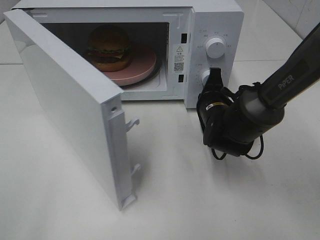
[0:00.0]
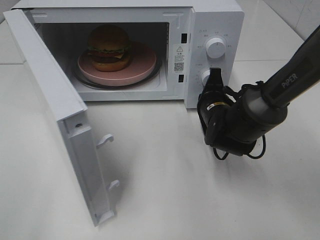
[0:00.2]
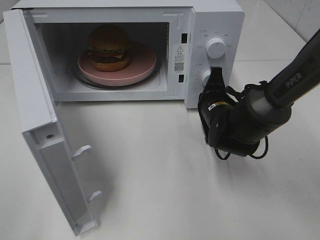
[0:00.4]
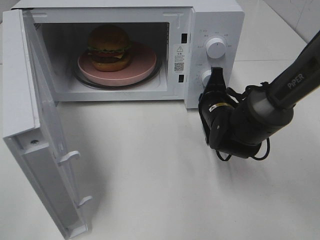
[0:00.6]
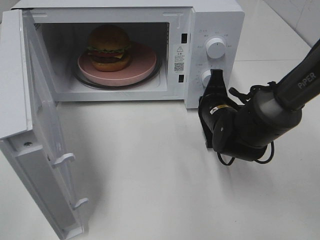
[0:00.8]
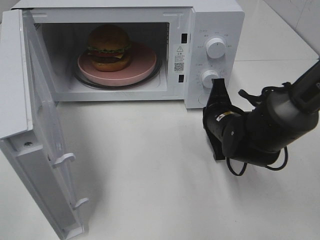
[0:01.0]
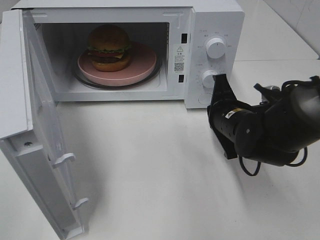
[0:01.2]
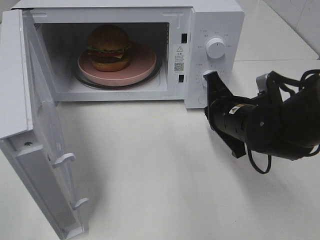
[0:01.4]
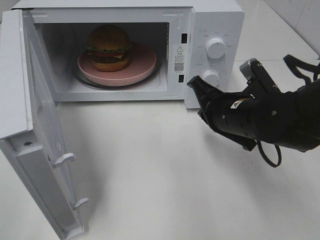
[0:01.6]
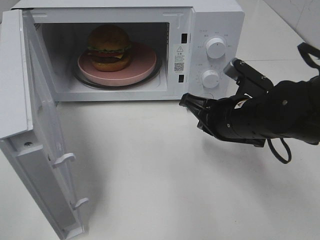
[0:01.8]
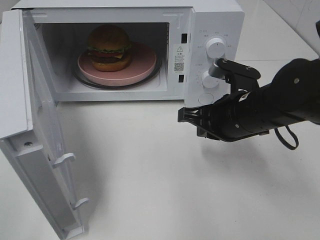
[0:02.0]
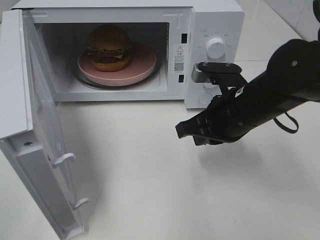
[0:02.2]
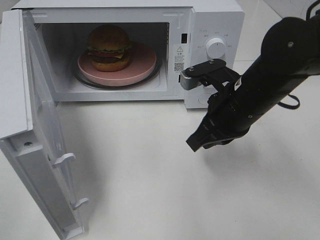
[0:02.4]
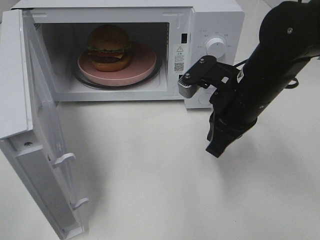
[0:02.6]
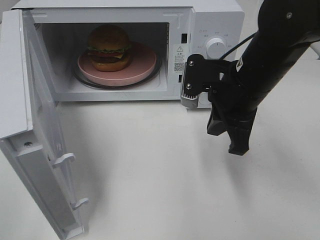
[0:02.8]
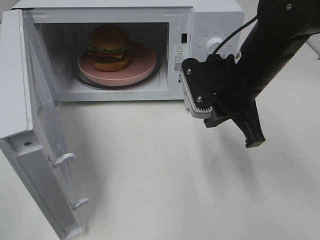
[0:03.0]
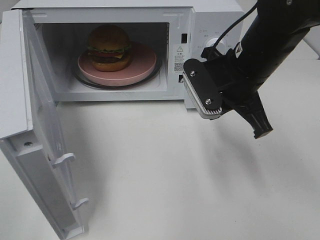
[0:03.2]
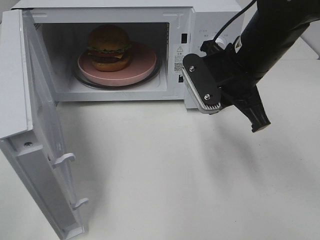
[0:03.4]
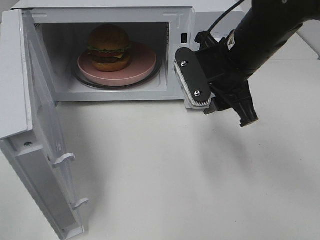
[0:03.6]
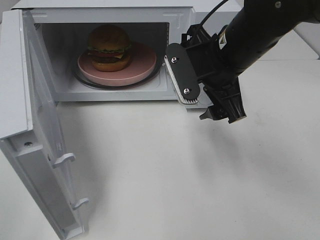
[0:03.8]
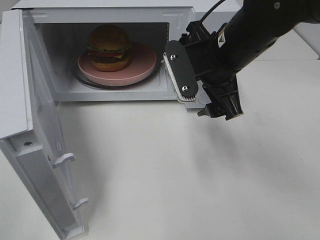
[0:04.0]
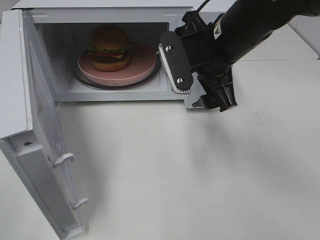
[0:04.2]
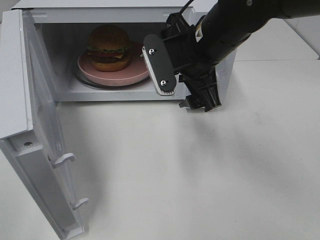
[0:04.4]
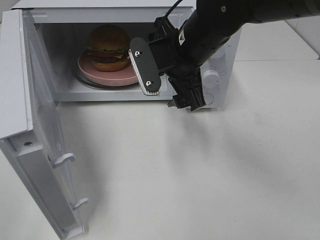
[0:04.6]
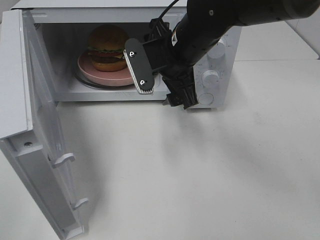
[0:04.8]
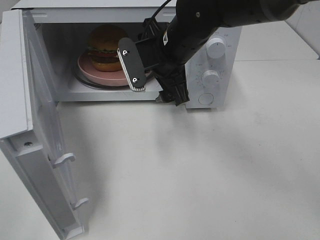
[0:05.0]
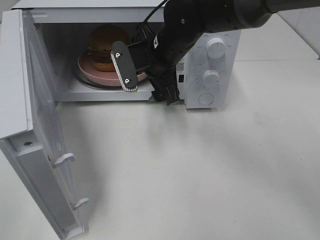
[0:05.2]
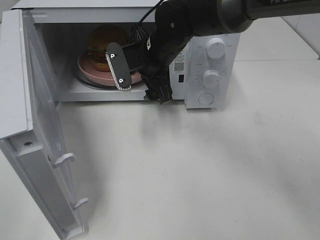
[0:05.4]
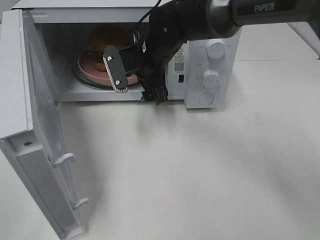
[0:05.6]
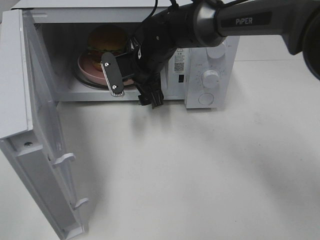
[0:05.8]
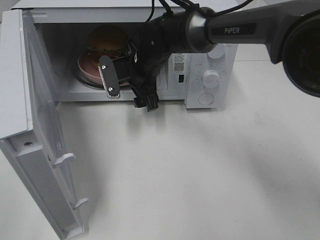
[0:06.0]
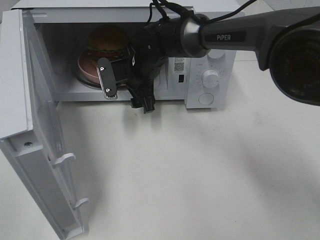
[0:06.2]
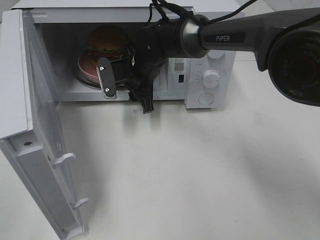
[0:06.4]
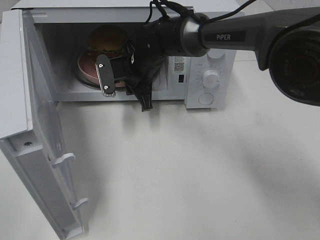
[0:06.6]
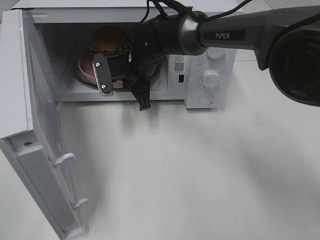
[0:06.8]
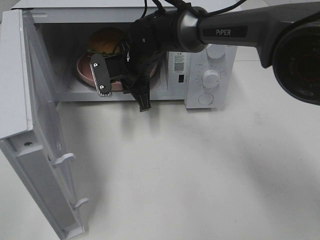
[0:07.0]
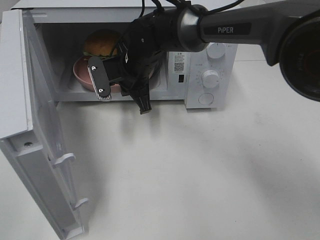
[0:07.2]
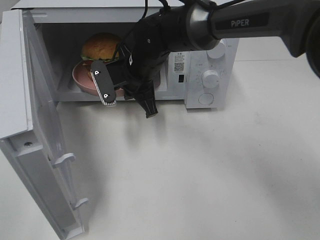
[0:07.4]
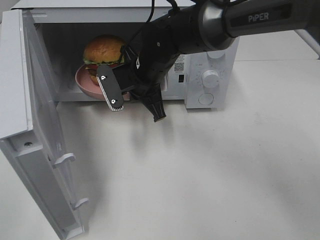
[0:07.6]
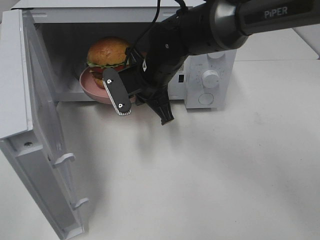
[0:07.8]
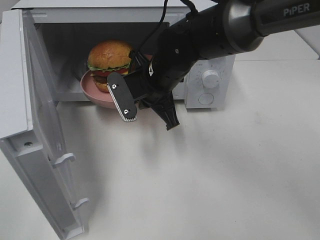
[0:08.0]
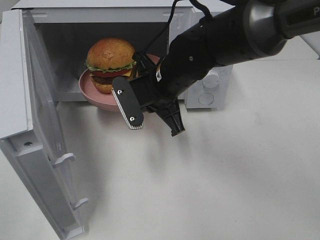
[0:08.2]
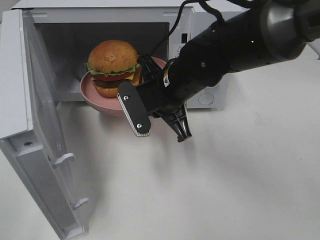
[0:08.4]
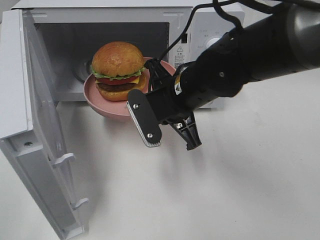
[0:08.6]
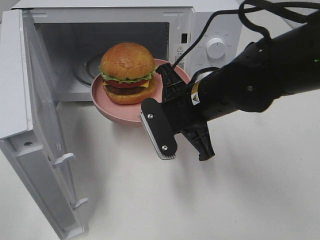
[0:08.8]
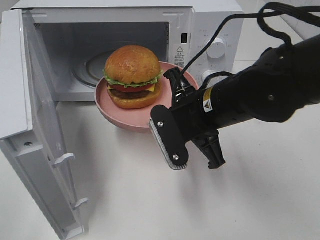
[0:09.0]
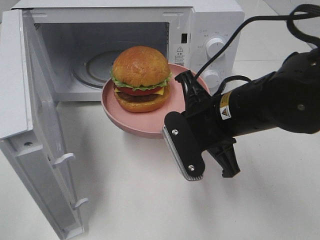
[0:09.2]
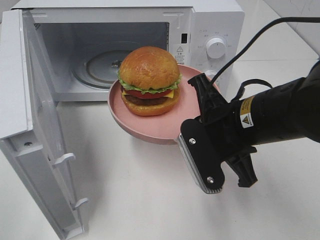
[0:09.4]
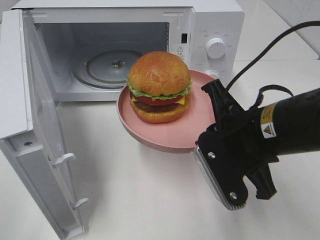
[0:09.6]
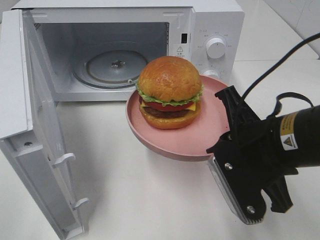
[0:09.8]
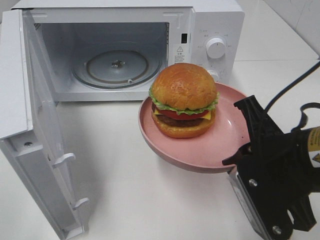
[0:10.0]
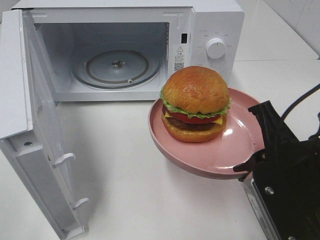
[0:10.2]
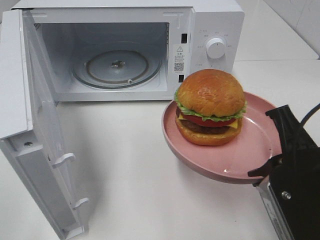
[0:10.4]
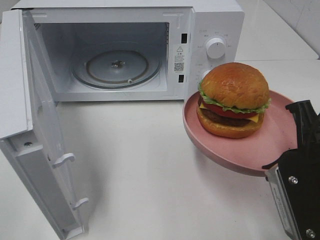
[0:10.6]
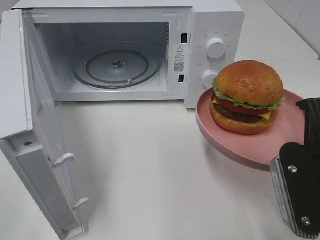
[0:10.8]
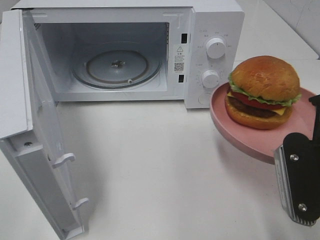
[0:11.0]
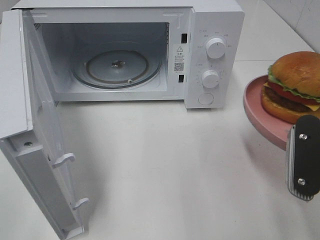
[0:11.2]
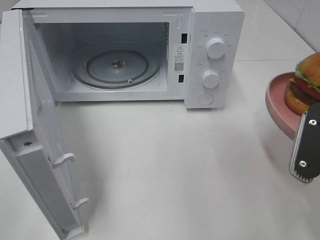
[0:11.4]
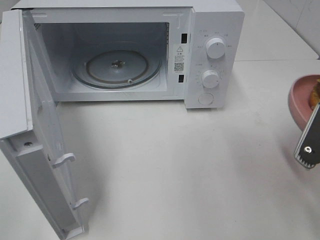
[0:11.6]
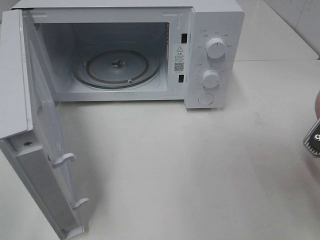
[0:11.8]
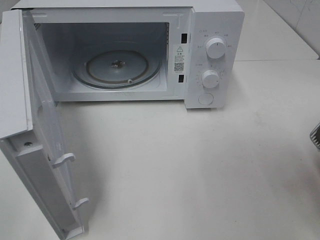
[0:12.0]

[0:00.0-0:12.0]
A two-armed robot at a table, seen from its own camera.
Task of the whole recording: Heat the burger.
Step, 0:01.0 to 0:06.6: Right hand: grab the plate with the hamburger.
0:00.0 to 0:01.6: The right gripper shifts about 10 cm backward and upward.
0:01.6 to 0:03.0: The right gripper moves upward, approximately 5 cm.
0:03.0 to 0:04.4: The right gripper heads to the left, covering about 5 cm, and opens its fingers.
0:04.4 to 0:06.0: The right gripper moves forward, downward and to the left, about 15 cm.
0:06.0 to 0:07.6: The right gripper moves backward, approximately 5 cm, and closes its fingers.
0:07.6 to 0:09.0: The right gripper goes some 15 cm backward and to the right.
0:09.0 to 0:10.4: The right gripper is displaced backward and to the right by some 15 cm.
0:10.4 to 0:12.0: The right gripper moves to the right, roughly 5 cm.

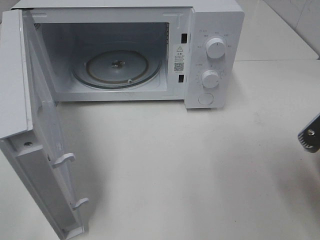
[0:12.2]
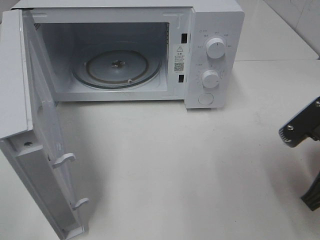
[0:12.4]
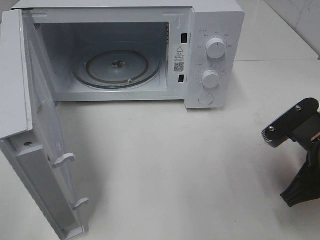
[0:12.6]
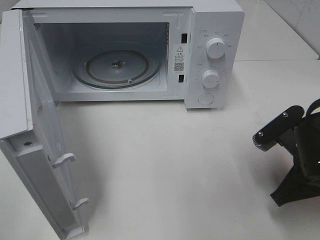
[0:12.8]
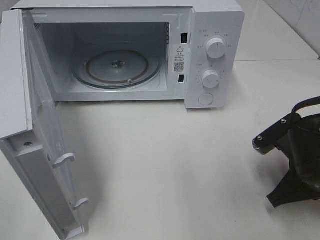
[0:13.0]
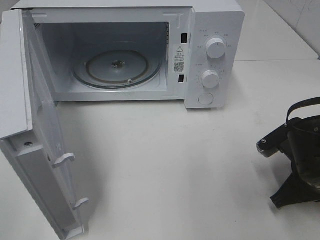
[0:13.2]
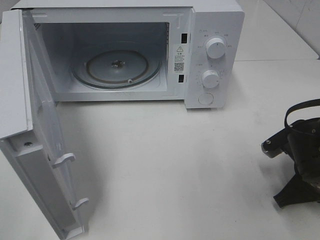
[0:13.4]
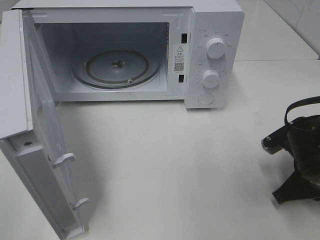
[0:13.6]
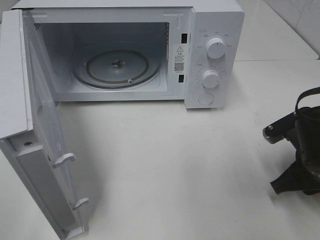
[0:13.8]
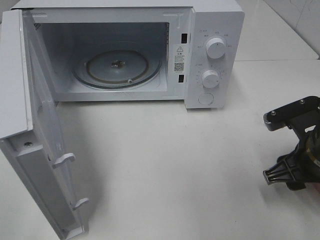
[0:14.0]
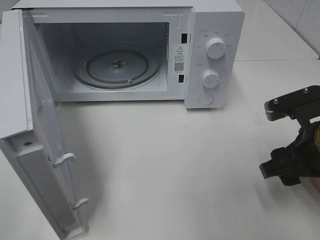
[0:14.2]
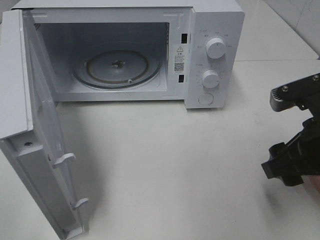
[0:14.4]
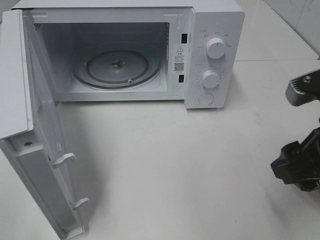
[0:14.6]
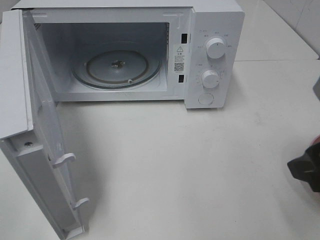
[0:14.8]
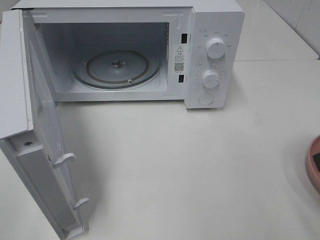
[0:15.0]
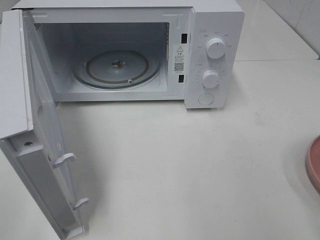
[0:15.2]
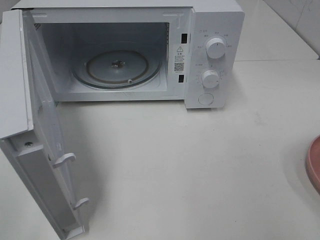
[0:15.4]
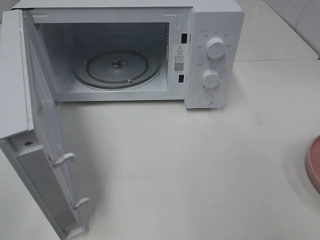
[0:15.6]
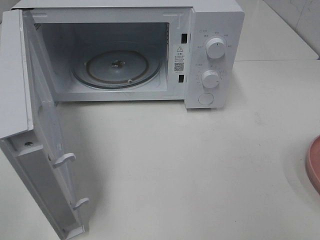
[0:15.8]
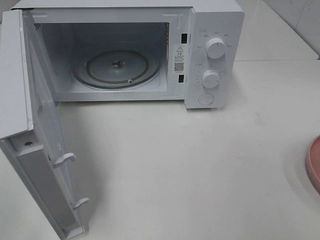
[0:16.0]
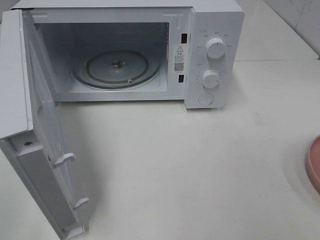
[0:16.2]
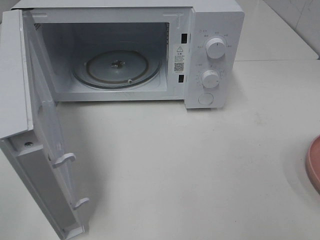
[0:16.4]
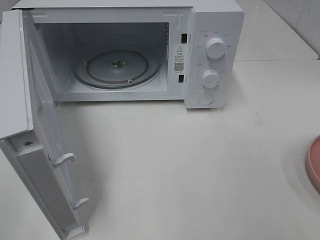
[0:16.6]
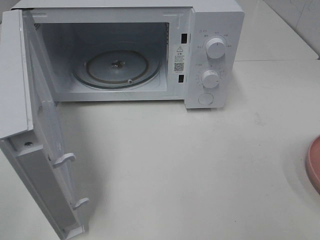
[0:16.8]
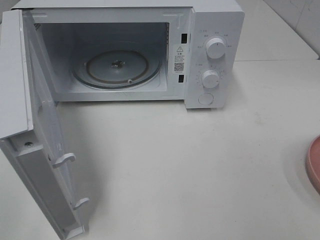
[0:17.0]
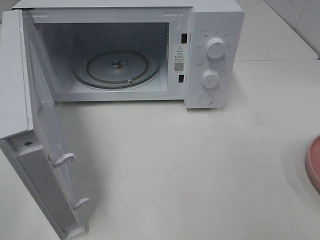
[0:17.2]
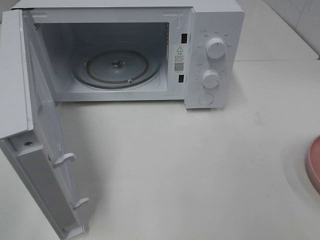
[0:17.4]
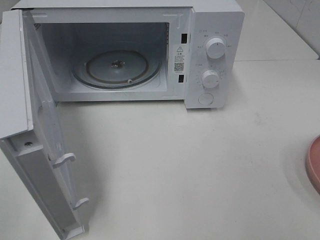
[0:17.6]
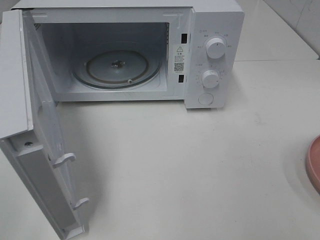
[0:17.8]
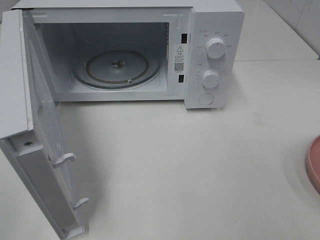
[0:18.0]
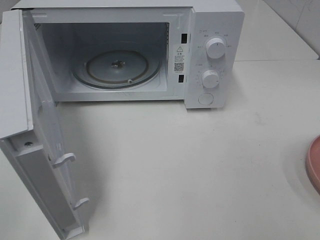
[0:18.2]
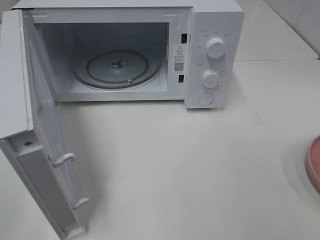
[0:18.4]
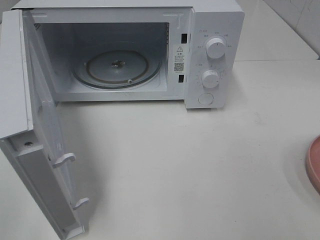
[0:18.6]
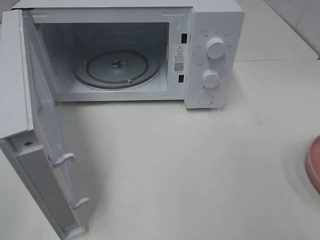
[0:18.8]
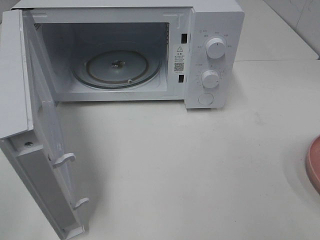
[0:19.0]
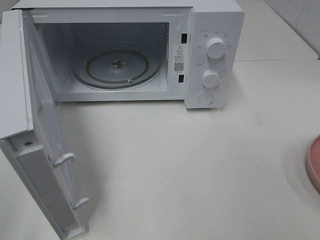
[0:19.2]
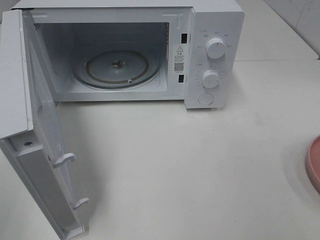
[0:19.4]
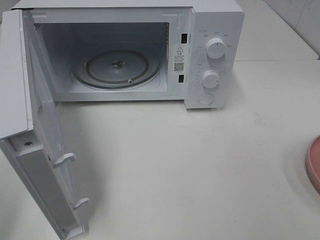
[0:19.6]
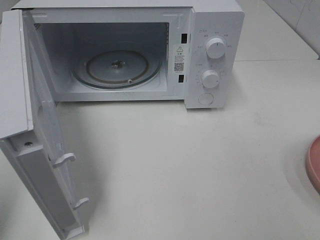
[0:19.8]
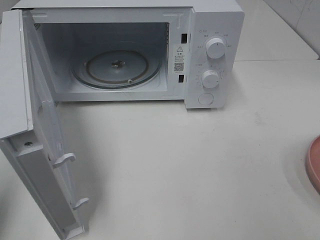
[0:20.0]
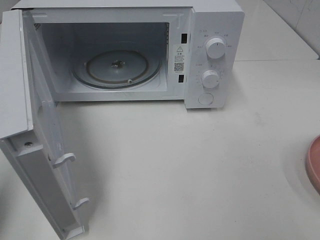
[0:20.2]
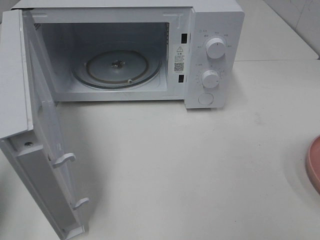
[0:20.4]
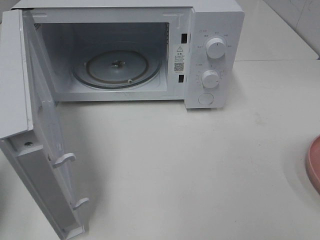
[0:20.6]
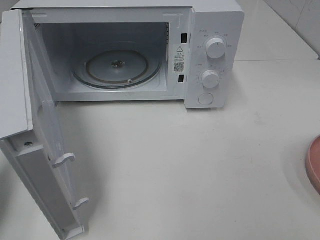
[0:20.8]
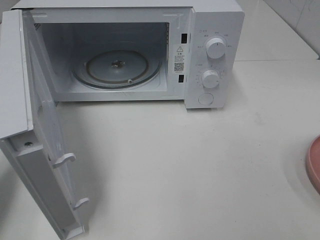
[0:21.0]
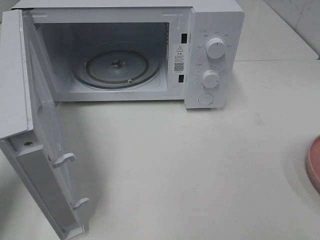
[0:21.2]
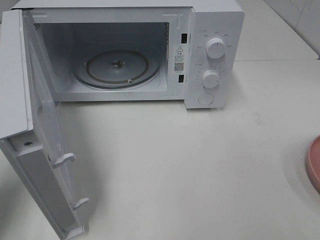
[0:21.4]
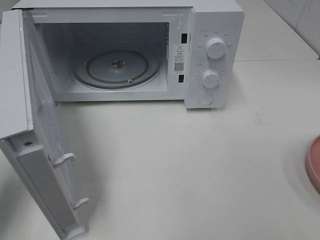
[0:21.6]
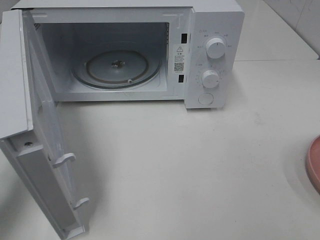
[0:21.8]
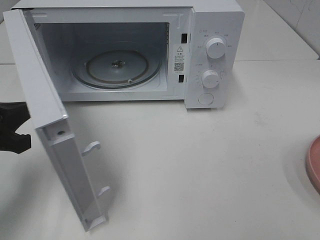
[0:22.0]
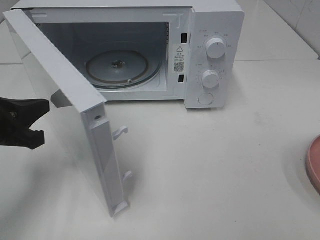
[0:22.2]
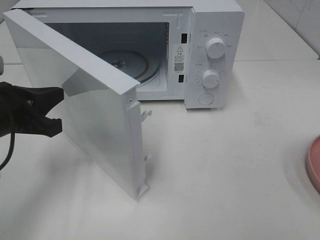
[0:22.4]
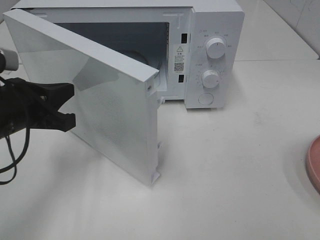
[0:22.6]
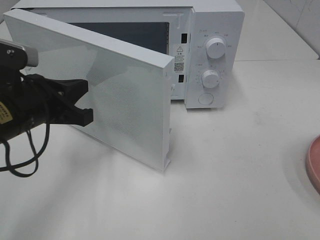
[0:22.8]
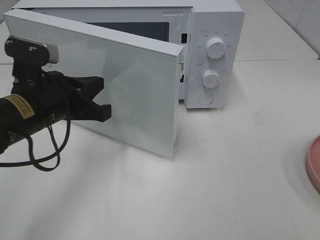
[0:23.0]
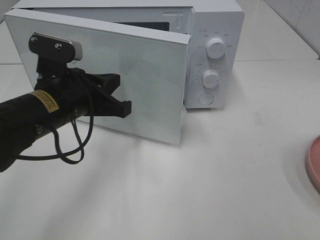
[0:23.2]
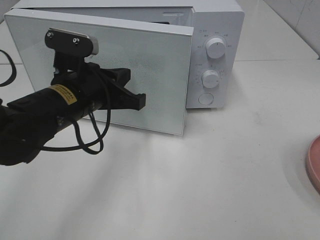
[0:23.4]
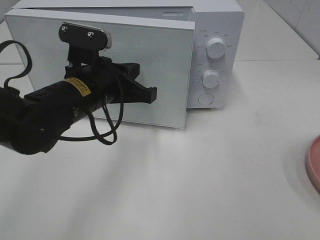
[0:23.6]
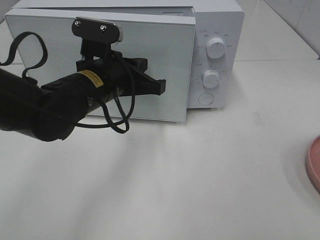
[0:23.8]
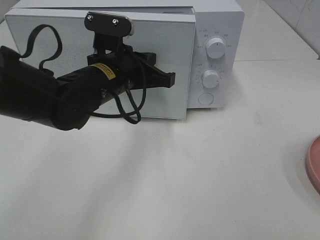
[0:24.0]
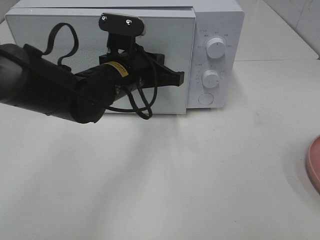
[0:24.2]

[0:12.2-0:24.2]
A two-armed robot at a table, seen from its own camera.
Task of the whole recording: Heat the burger.
0:12.2 to 0:13.8: The right gripper travels downward and forward by about 10 cm, and opens.
0:13.8 to 0:15.2: The right gripper moves upward and backward, about 25 cm.
0:16.6 to 0:18.2: Both grippers stay about where they are.
0:19.8 to 0:21.2: The left gripper moves downward and forward, about 15 cm.
0:21.2 to 0:22.6: The left gripper travels to the right and forward by approximately 10 cm.
0:22.6 to 0:24.2: The left gripper goes roughly 20 cm to the right and forward.
